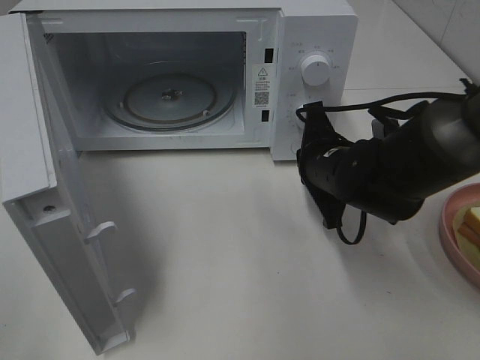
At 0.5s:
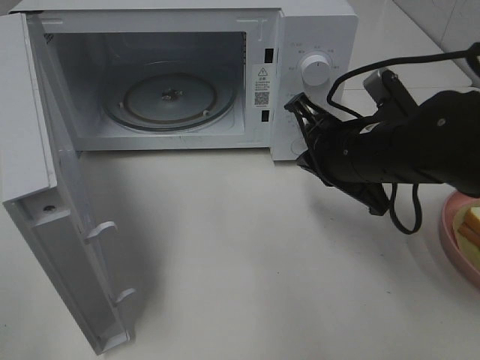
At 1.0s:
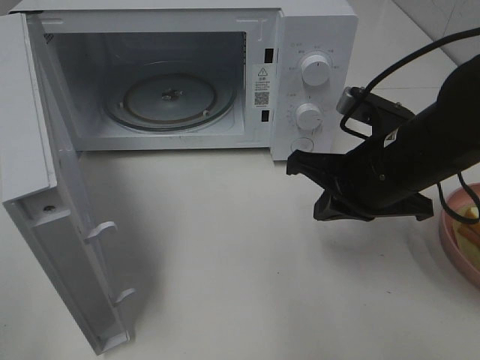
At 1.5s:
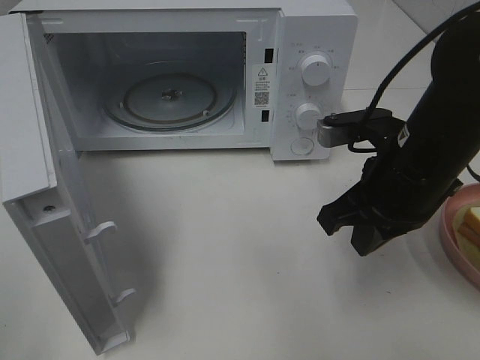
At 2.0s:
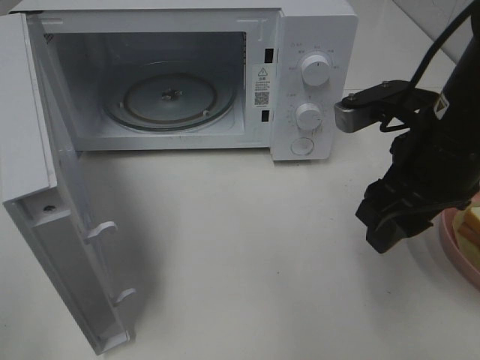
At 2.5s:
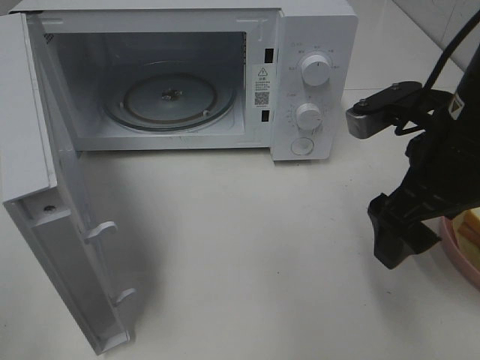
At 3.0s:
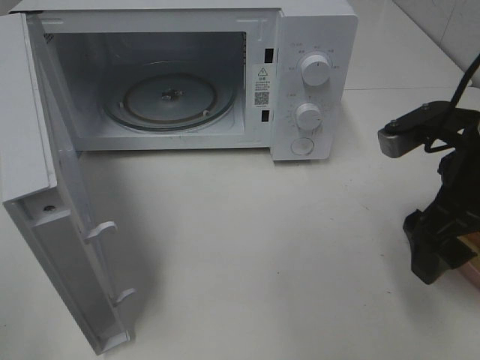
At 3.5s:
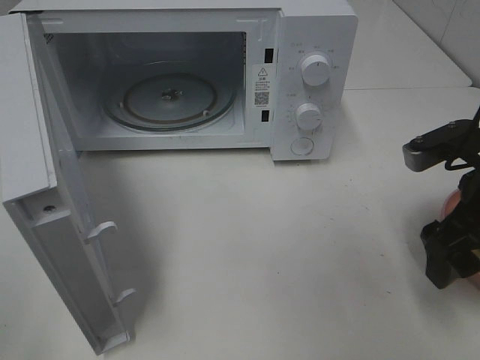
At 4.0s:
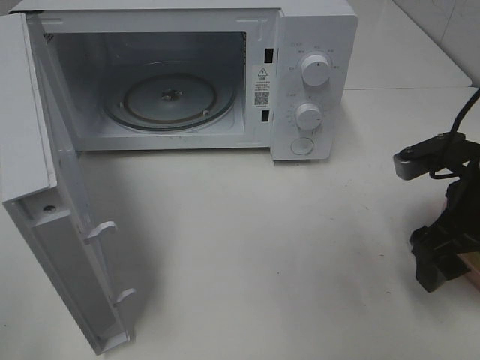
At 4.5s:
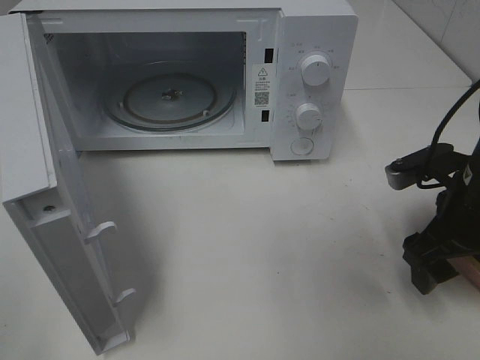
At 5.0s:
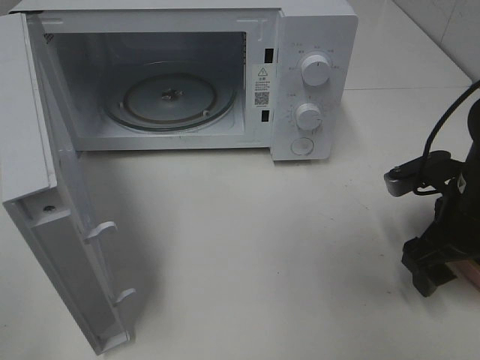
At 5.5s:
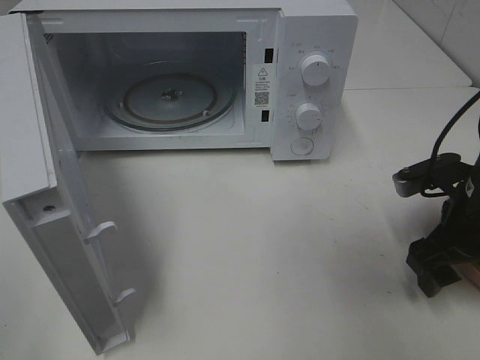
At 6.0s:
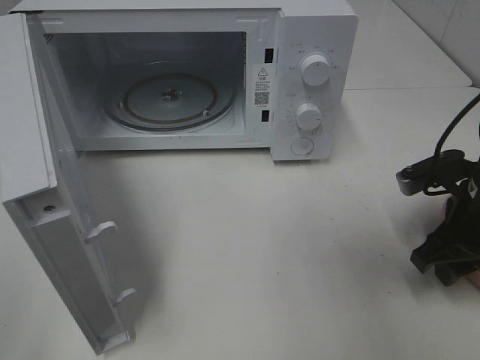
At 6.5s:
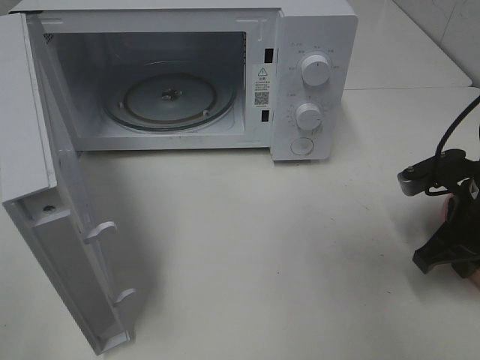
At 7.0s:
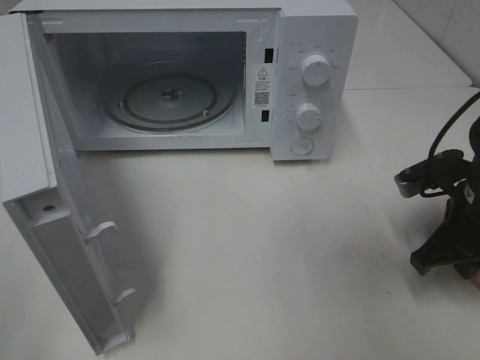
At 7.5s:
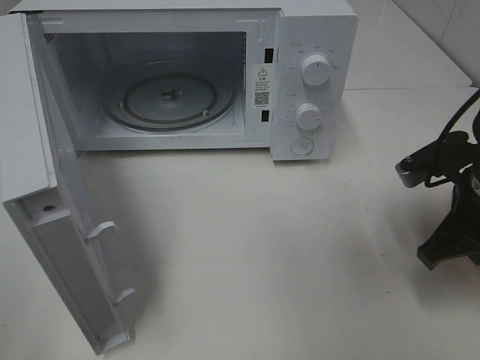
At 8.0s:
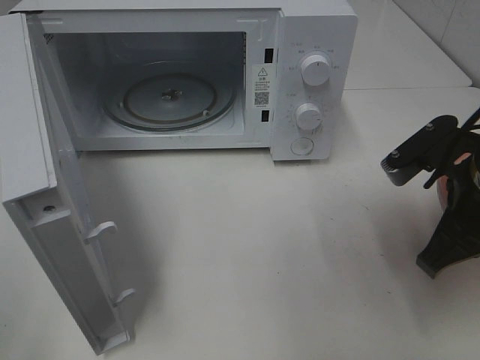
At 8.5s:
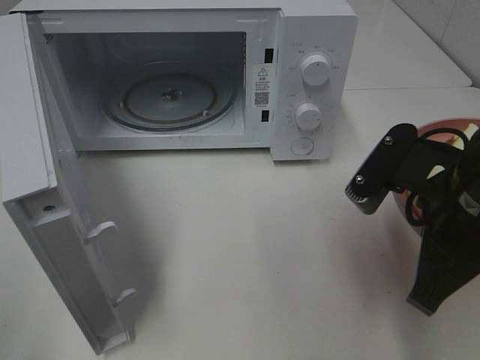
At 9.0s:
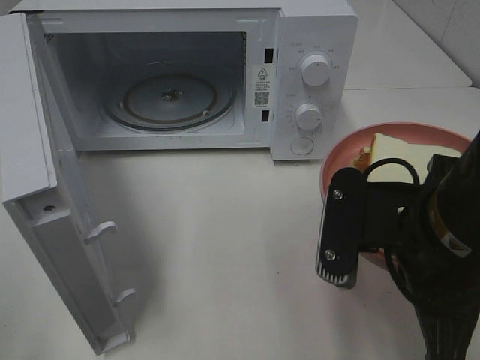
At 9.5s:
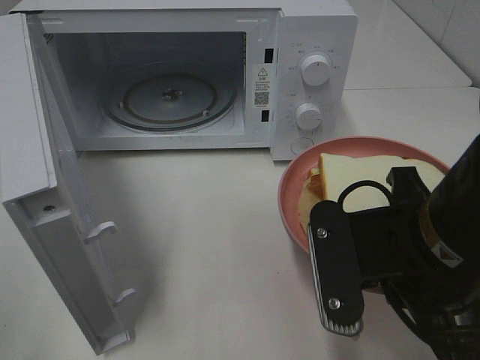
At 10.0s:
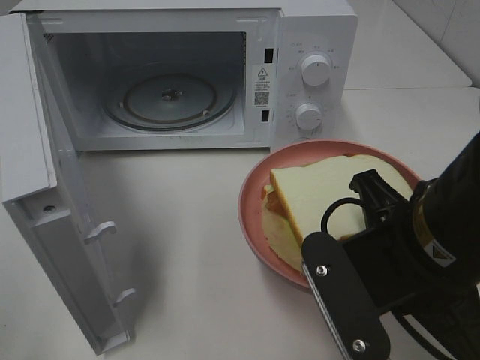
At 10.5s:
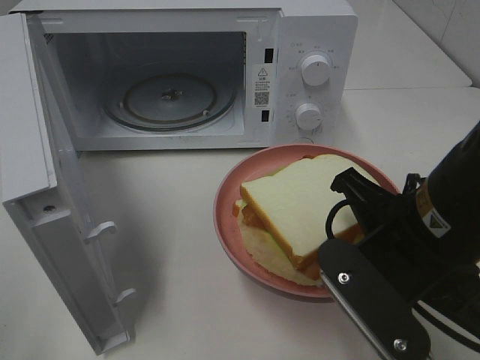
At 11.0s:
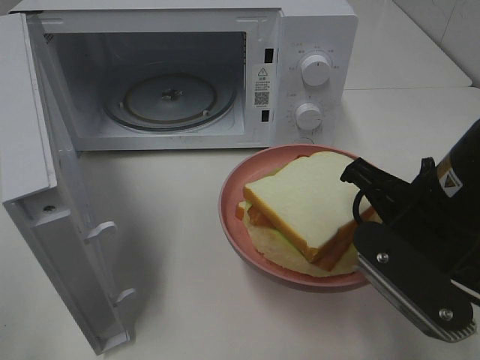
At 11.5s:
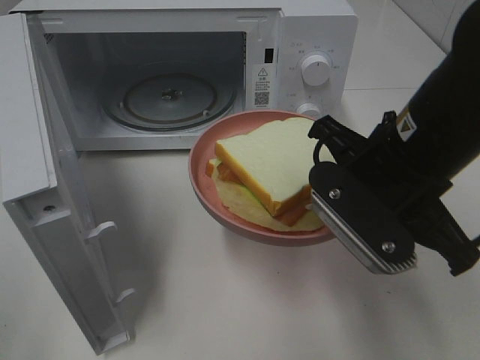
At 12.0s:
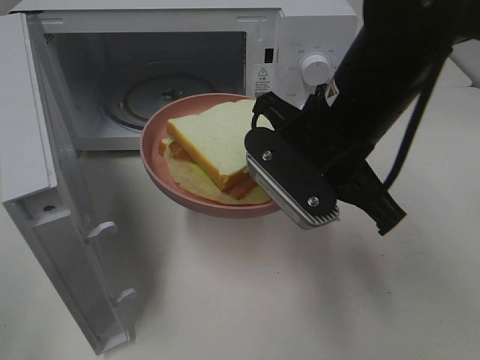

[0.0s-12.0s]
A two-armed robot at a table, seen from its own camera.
Task of the whole recording: Heat Sandwich.
Step, 1.0s to 6.0s: Right hand: grab the plate with the sandwich.
0.0s to 2.0s: The right gripper travels upward and backward by roughly 15 cm, and opens up.
2.0s to 4.0s: The right gripper heads to the right and downward, covering about 10 cm.
4.0s to 6.0s: The right gripper closes.
6.0s to 8.0s: The right gripper shifts some 5 cm upward, and closes its fingers.
8.0s to 10.0s: The right gripper heads to the left and backward, covering roughly 10 cm.
10.0s to 12.0s: The right gripper travels forward by approximately 10 cm.

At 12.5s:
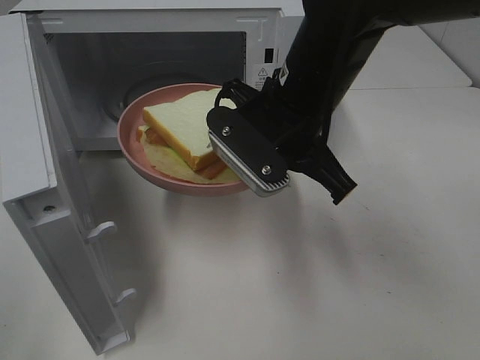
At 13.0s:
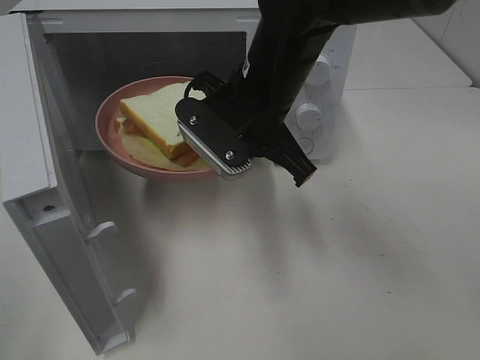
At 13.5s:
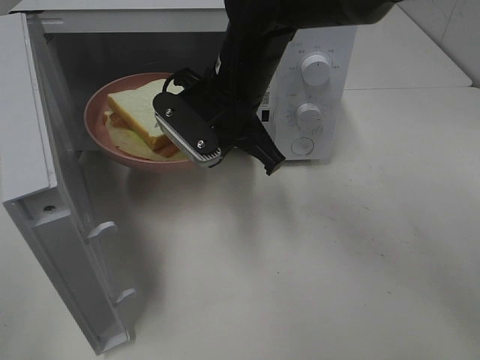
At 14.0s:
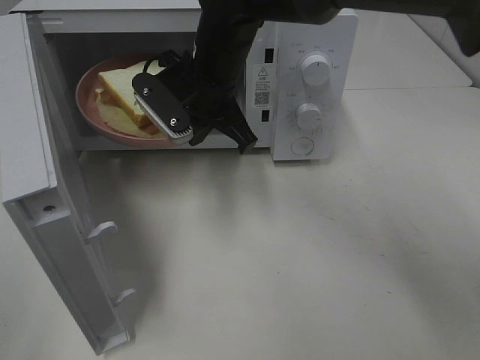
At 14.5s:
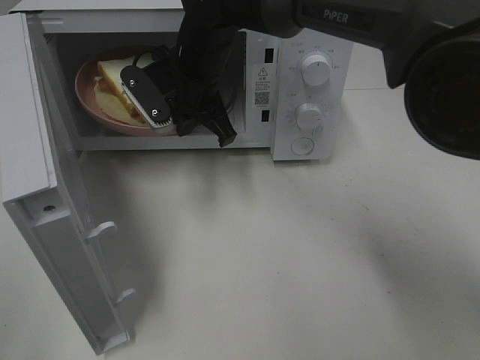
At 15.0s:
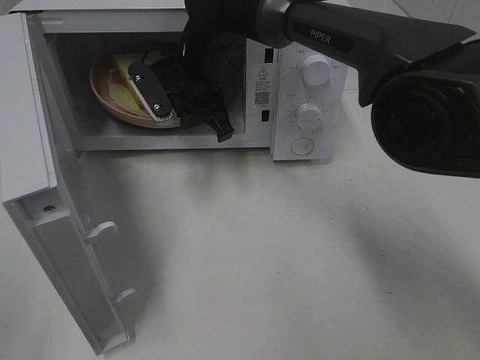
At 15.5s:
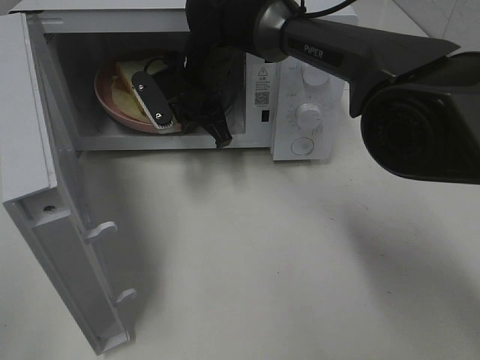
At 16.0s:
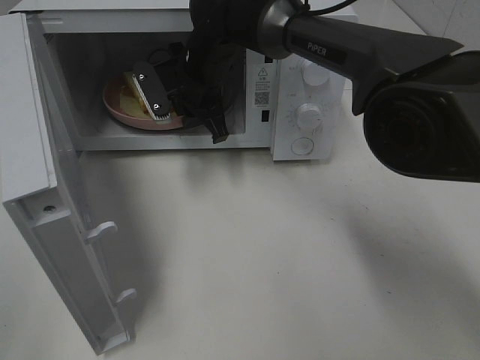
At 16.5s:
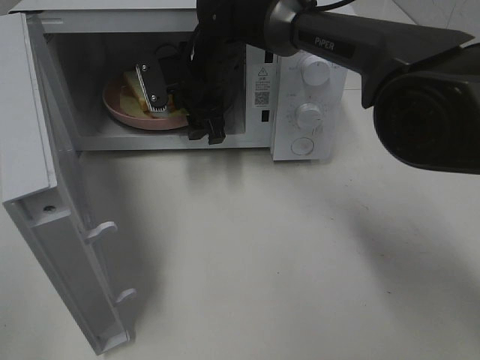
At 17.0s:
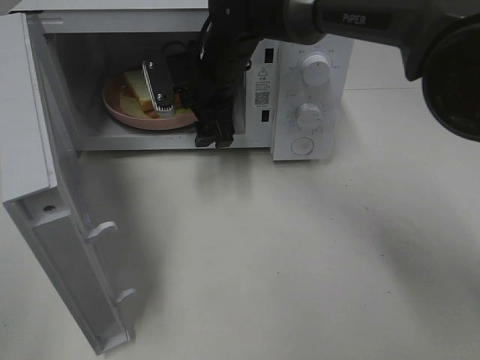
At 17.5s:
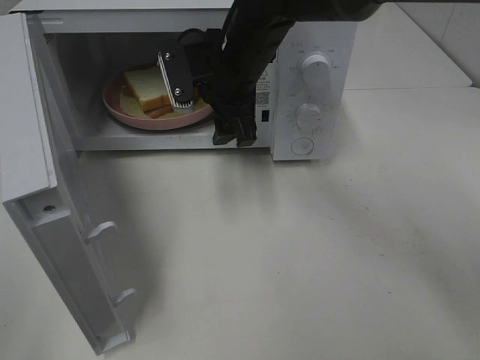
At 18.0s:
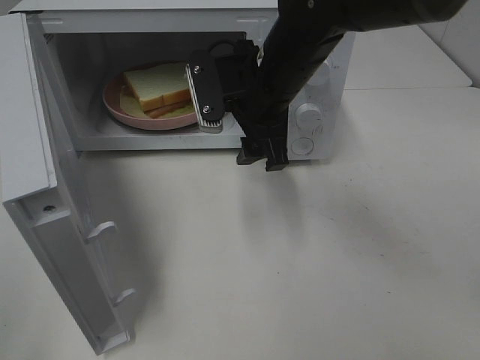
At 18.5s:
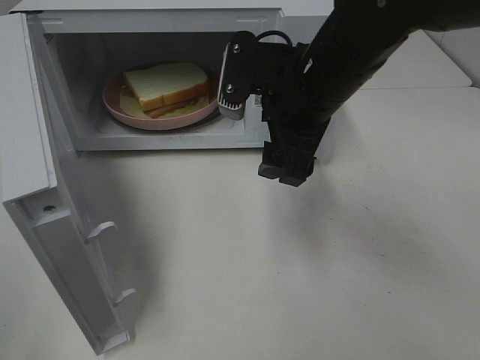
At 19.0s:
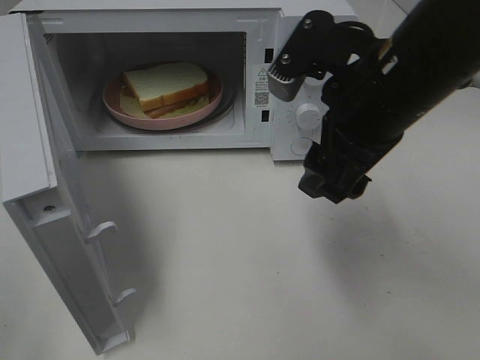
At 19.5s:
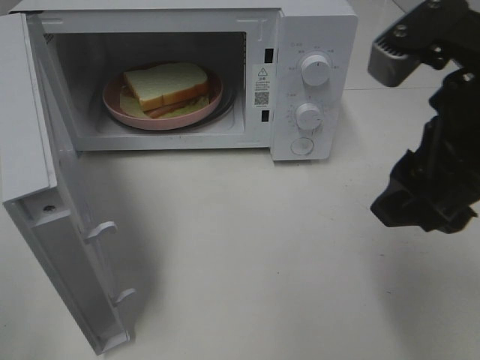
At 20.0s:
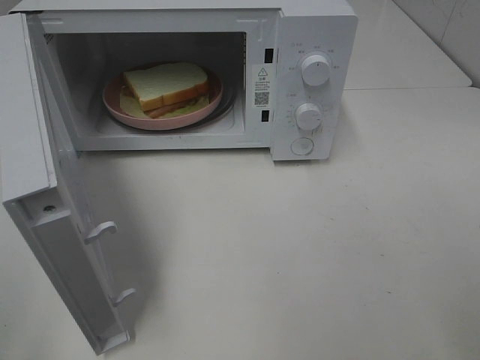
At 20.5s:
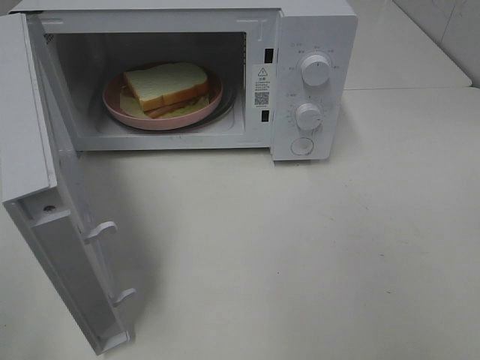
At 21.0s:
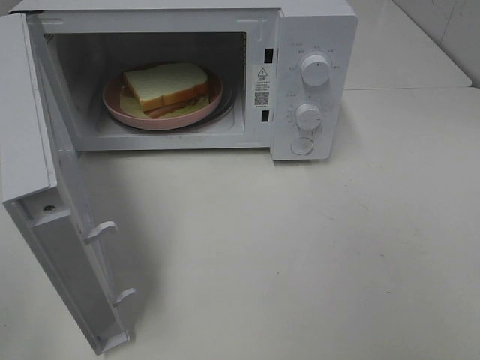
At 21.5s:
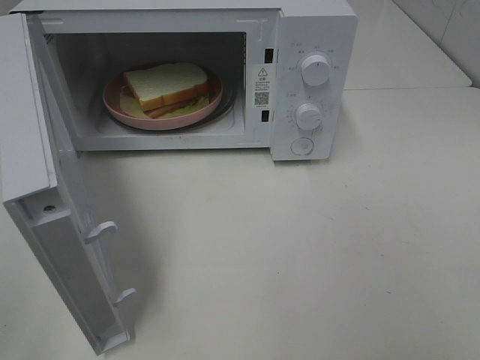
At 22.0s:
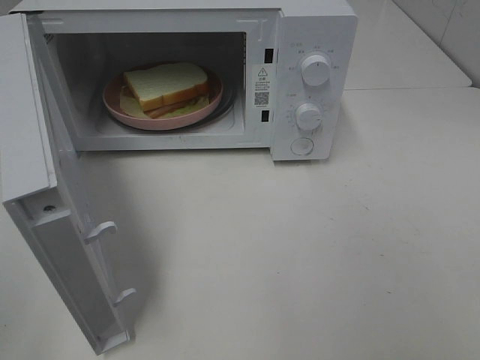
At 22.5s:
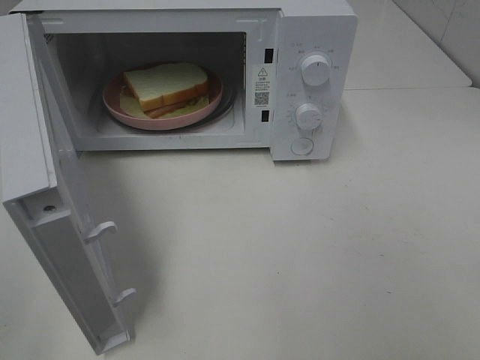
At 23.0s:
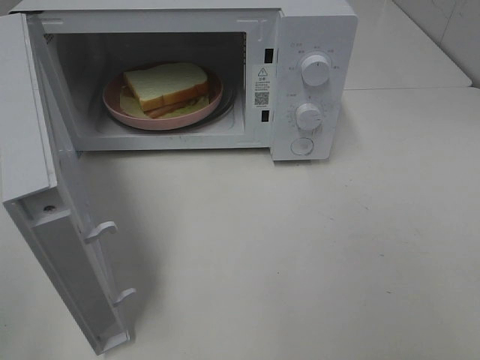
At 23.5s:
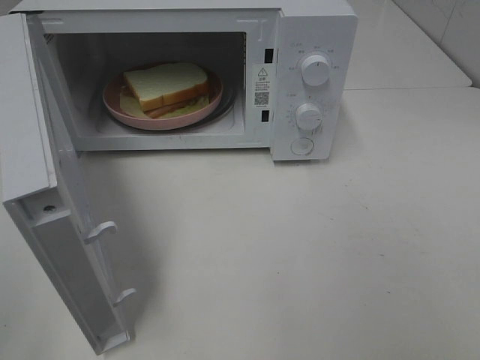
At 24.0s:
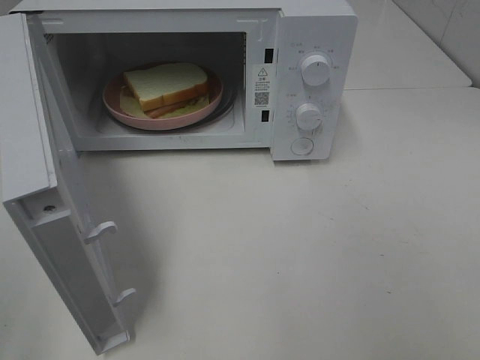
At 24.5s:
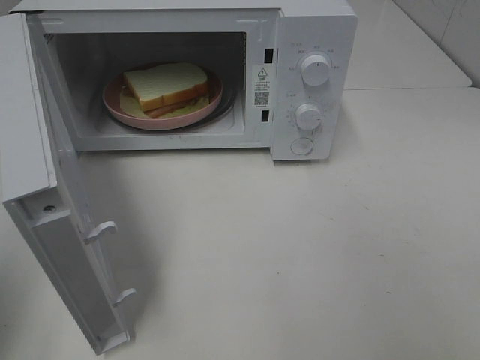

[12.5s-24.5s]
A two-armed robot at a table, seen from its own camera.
Task of the whole recording: Heat Sandwich.
Step, 12.5s to 17.0s: Right hand: place the plate in the microwave.
12.5s to 14.5s: The right gripper shifts approximately 15 cm forward and to the left.
14.5s to 16.5s: The right gripper opens.
16.5s to 18.5s: The right gripper shifts about 20 cm backward, to the right and upward.
18.5s to 20.5s: The right gripper heads backward, to the right and upward, covering some 35 cm.

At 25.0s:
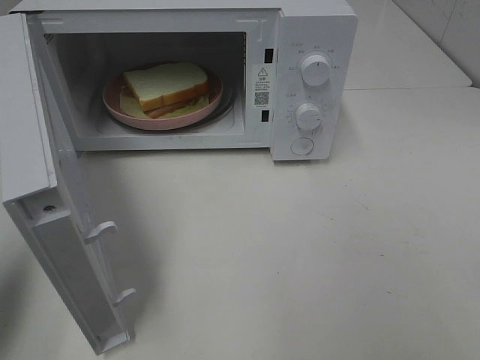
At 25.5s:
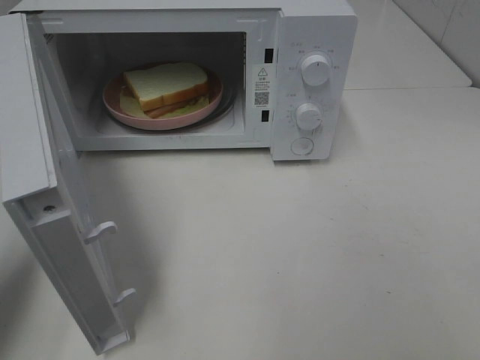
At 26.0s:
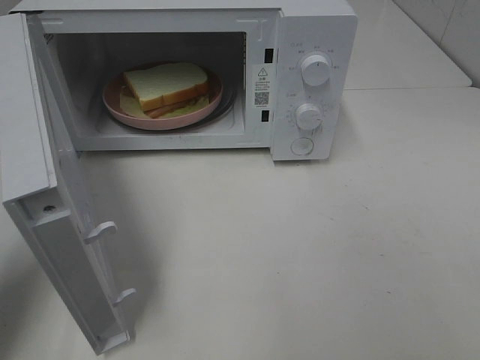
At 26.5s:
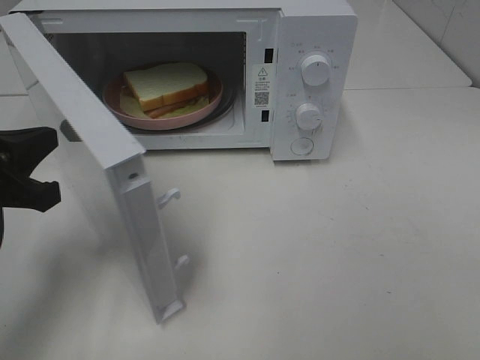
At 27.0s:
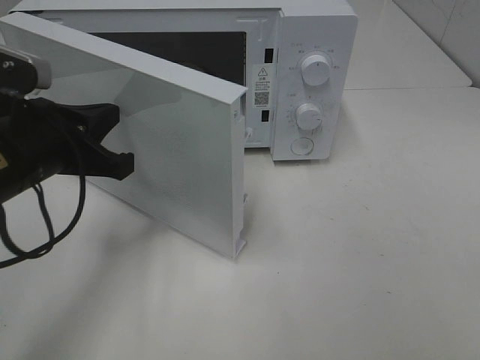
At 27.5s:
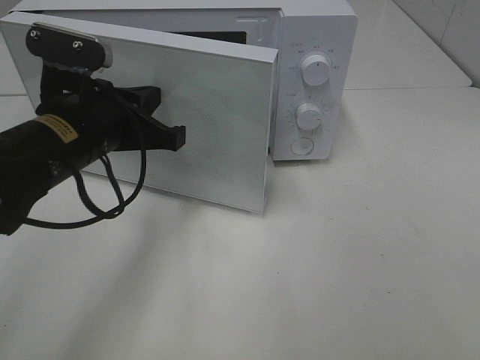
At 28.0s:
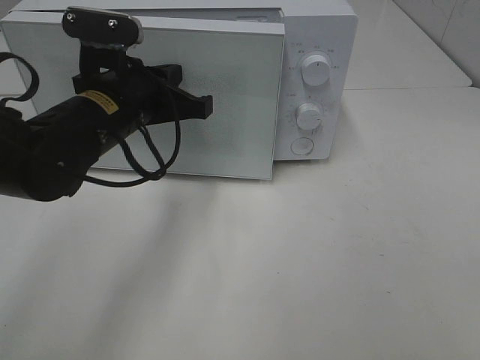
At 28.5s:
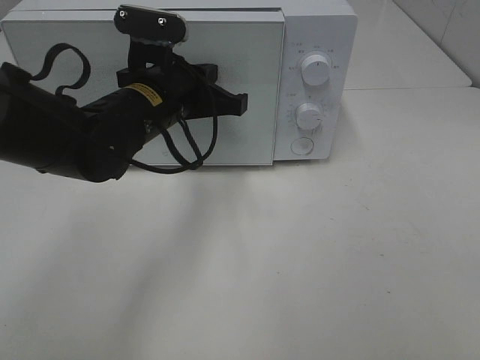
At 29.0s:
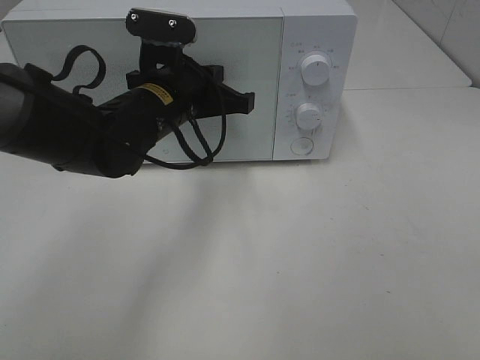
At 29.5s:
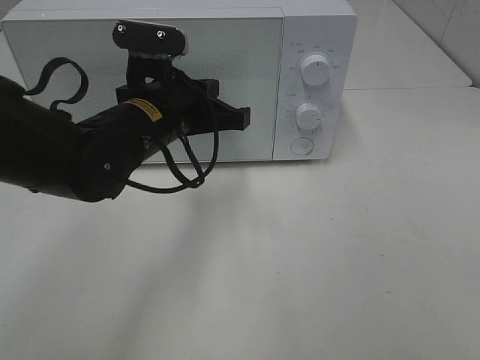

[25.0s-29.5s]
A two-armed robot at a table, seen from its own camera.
Task of the whole recording: Heat Sandwich.
25.0s to 27.0s: The left gripper travels to the right, forward and downward by about 15 cm.
27.0s to 29.5s: The left gripper travels to the right and forward by roughly 15 cm.
